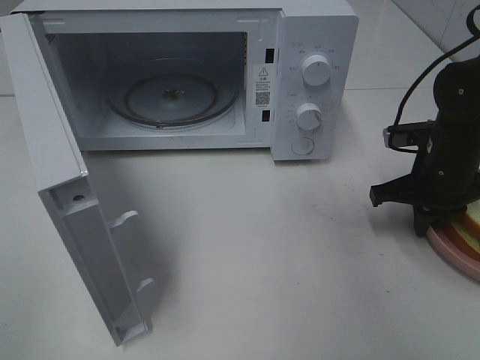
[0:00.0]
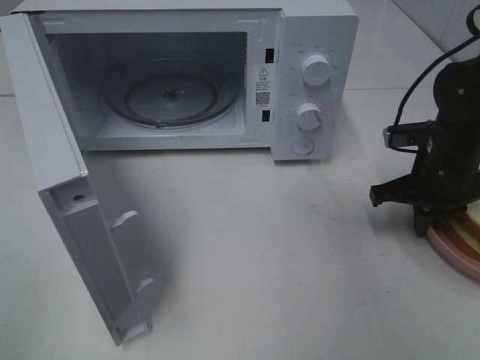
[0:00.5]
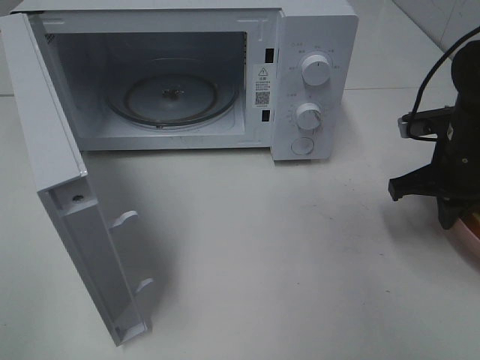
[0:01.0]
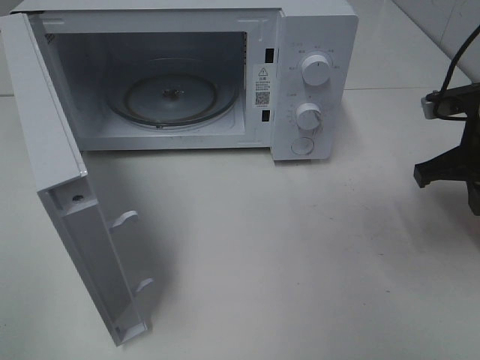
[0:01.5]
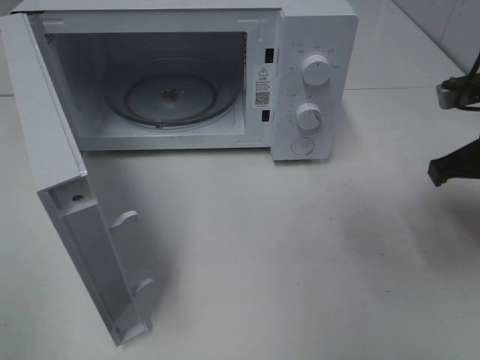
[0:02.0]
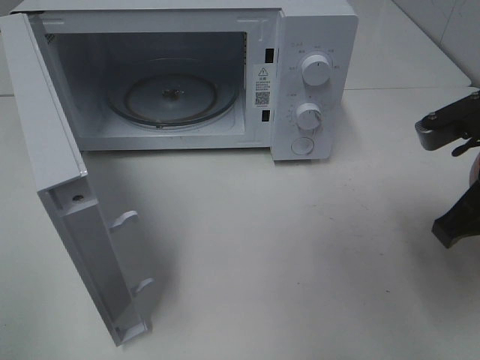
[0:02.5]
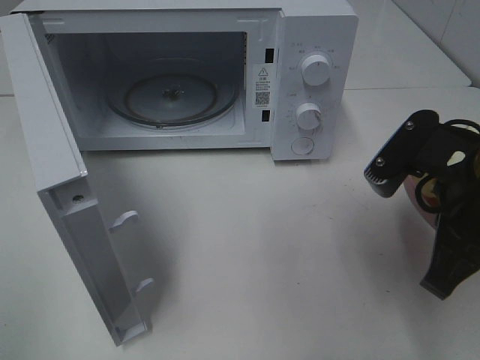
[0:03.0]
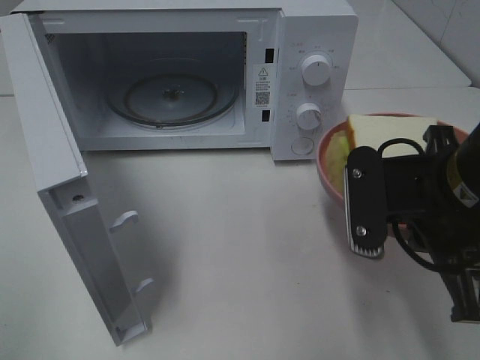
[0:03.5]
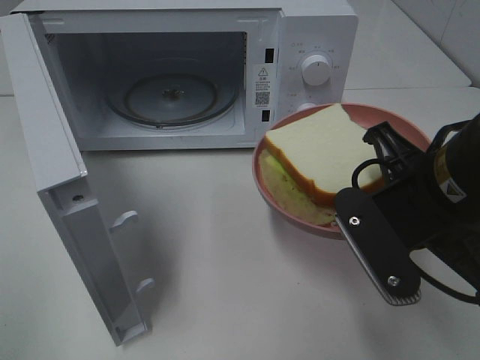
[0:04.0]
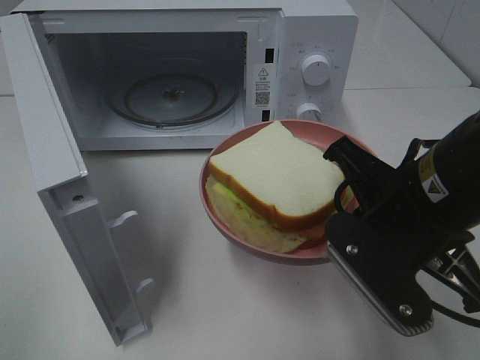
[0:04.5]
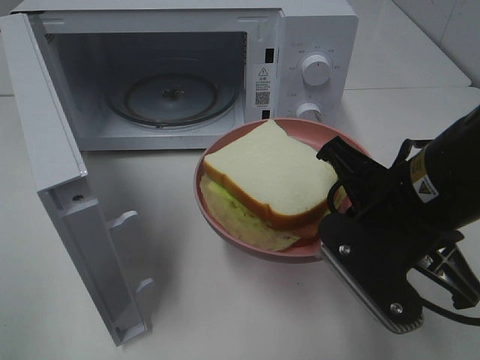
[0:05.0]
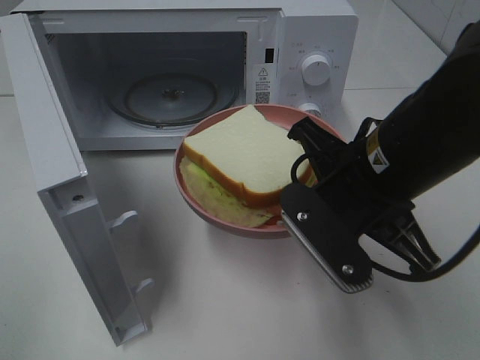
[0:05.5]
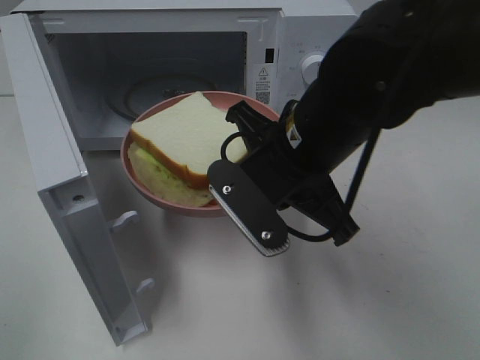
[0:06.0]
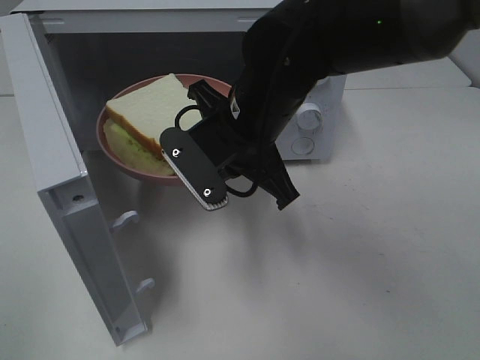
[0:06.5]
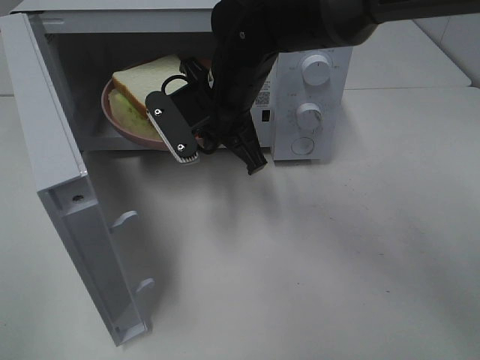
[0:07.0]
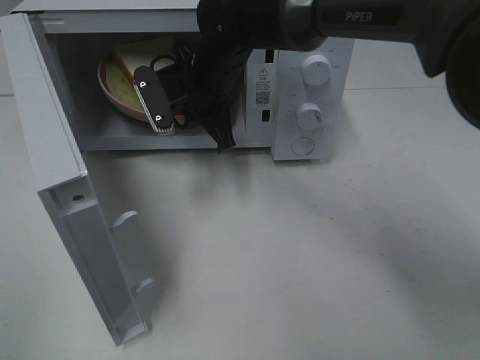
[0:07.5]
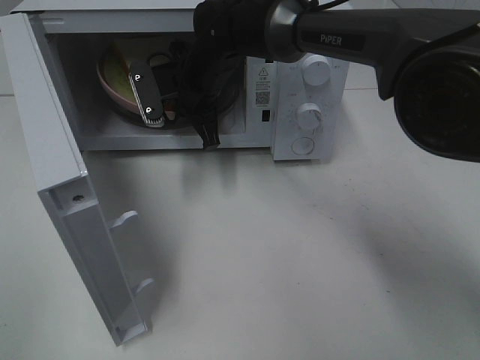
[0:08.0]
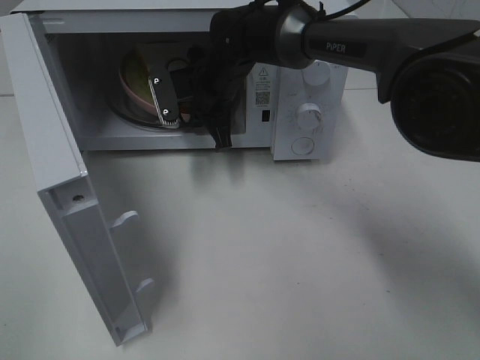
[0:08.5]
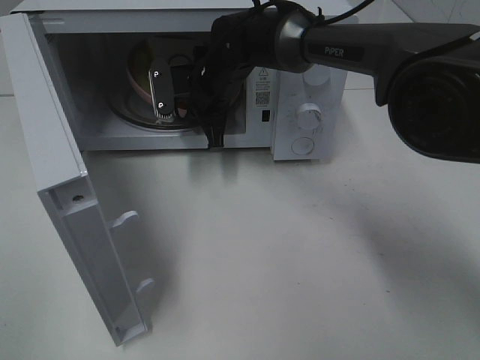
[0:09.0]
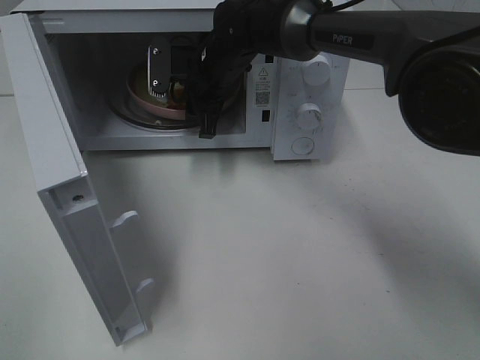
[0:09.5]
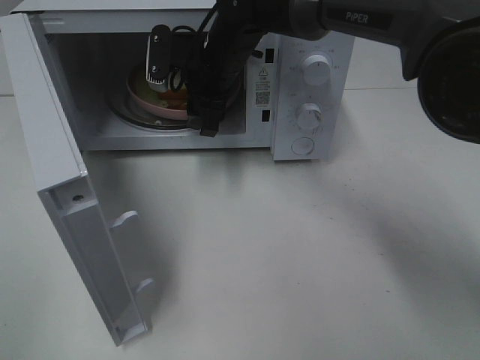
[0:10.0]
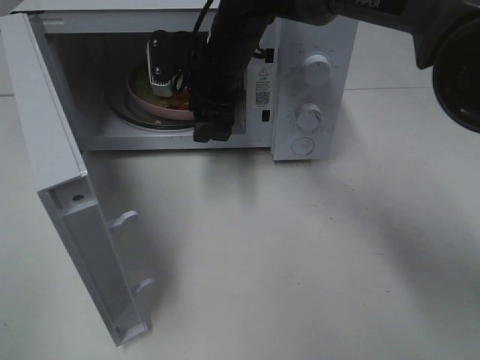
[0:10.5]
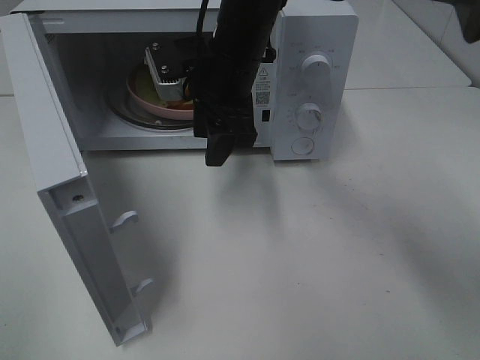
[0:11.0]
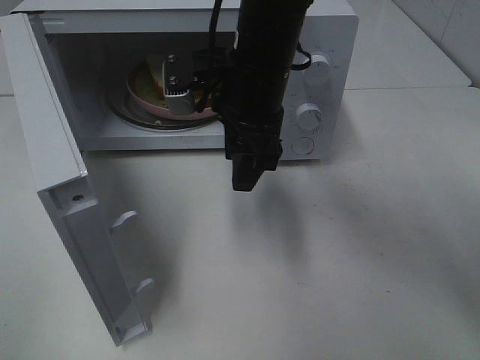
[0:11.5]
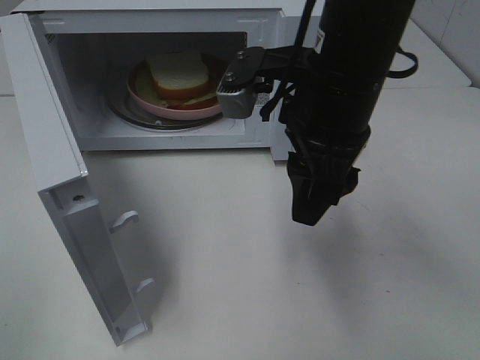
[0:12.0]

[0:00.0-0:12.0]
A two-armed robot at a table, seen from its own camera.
Task of the whole recording: Heat Sandwich.
Step, 0:00.0 to 0:10.0: Right hand: place the plate in the microwave.
0:00.0 to 0:02.0: The right gripper shifts approximately 10 cm upward and backward.
0:02.0 to 0:04.0: The right gripper heads to the left and backward, covering some 15 cm.
0:04.0 to 0:06.0: The right gripper shifts some 10 cm to the left and forward.
0:06.0 to 0:08.0: The right gripper is displaced forward and to the left by about 20 cm.
0:08.0 to 0:10.0: The right gripper opens.
0:10.0 to 0:12.0: The right gripper is displaced backward, to the right and upward by approximately 20 cm.

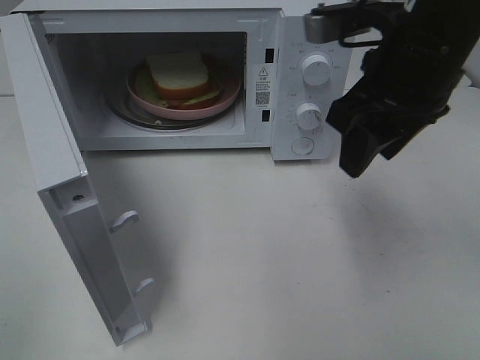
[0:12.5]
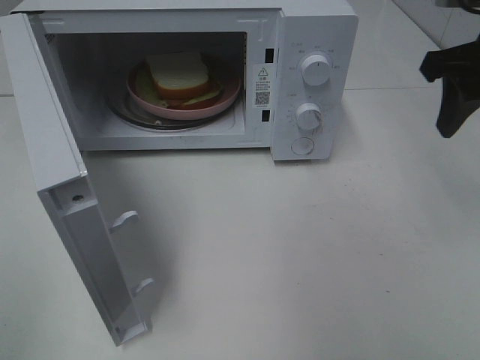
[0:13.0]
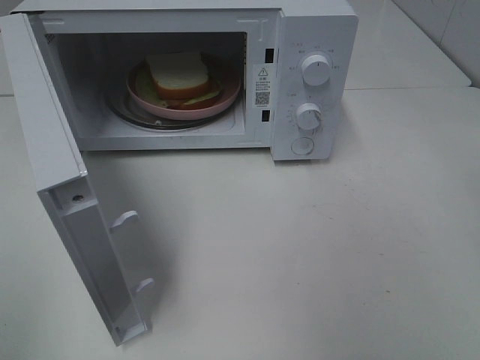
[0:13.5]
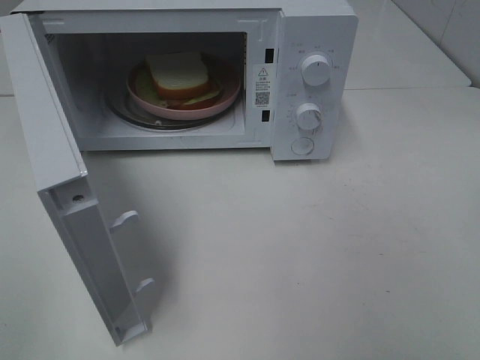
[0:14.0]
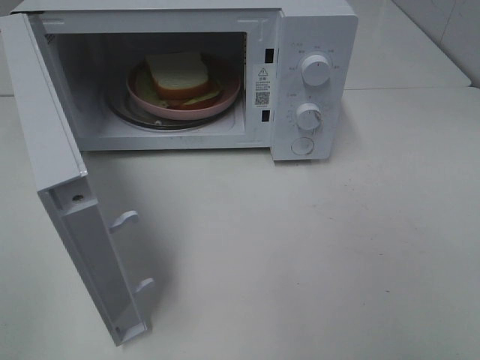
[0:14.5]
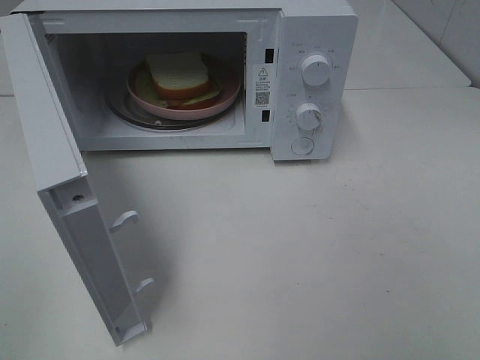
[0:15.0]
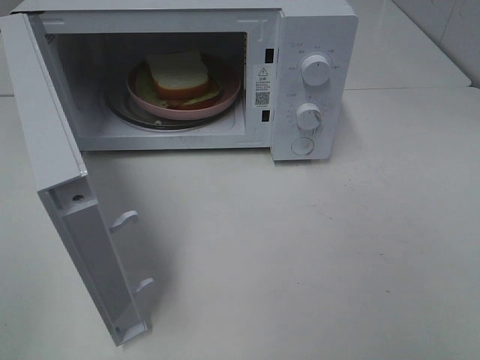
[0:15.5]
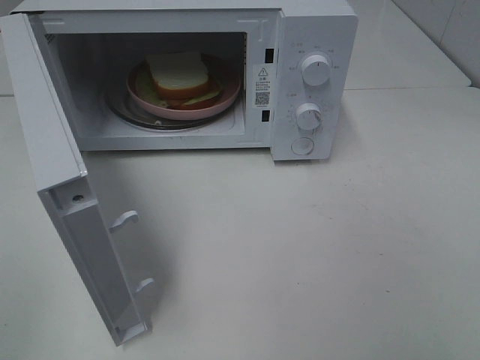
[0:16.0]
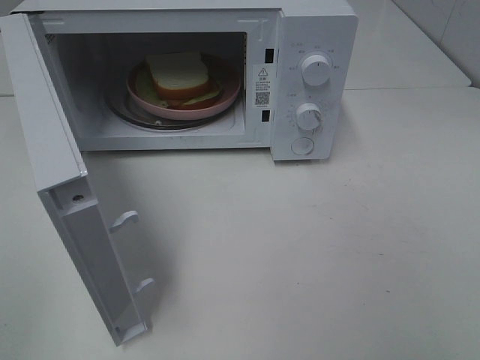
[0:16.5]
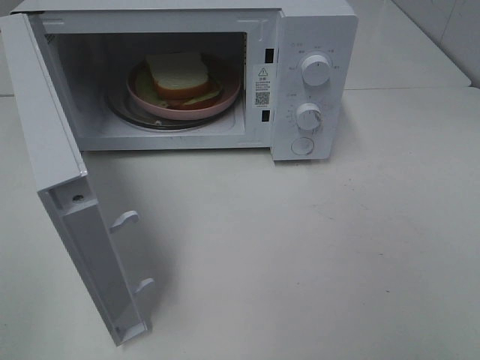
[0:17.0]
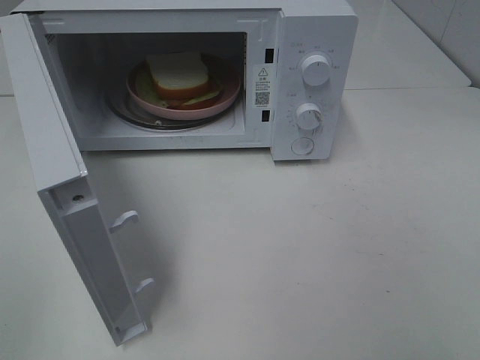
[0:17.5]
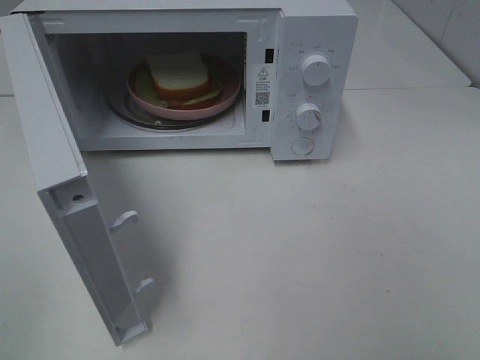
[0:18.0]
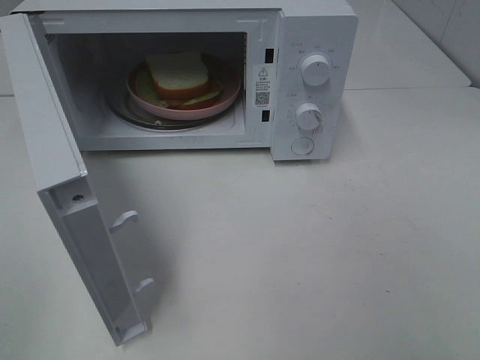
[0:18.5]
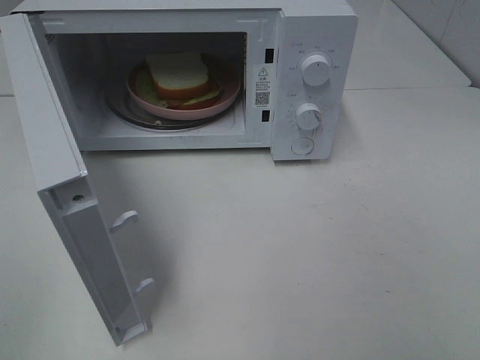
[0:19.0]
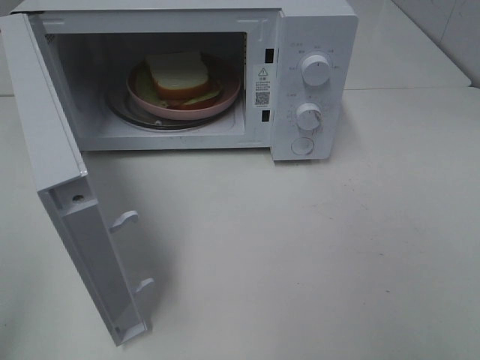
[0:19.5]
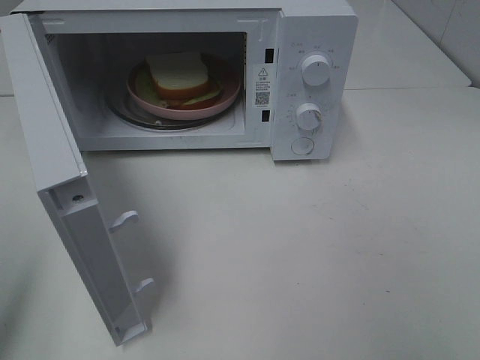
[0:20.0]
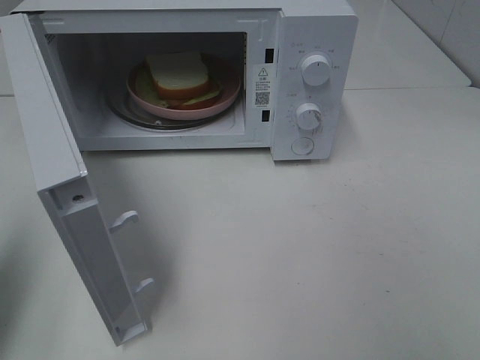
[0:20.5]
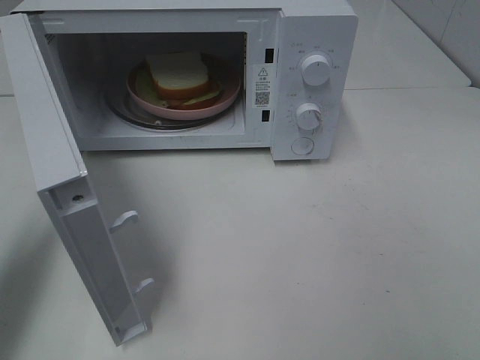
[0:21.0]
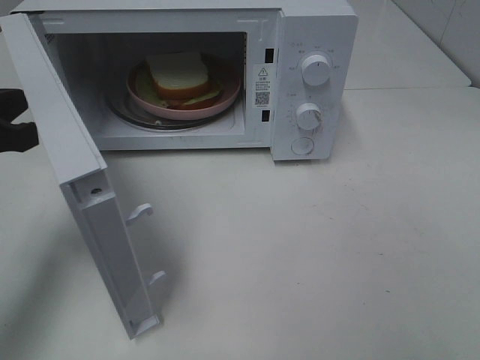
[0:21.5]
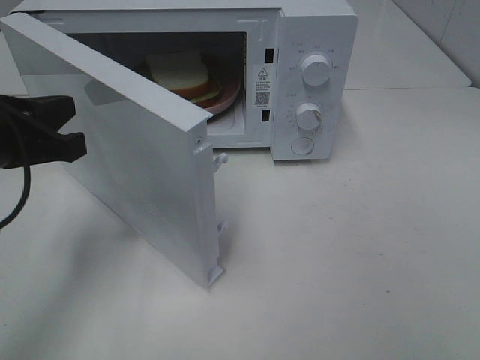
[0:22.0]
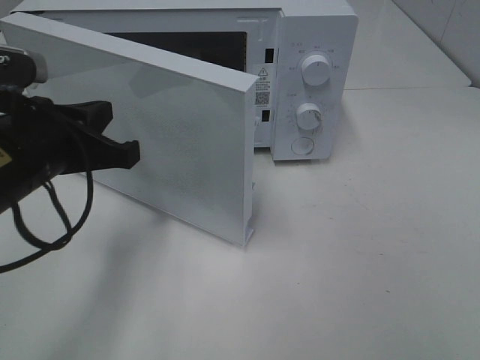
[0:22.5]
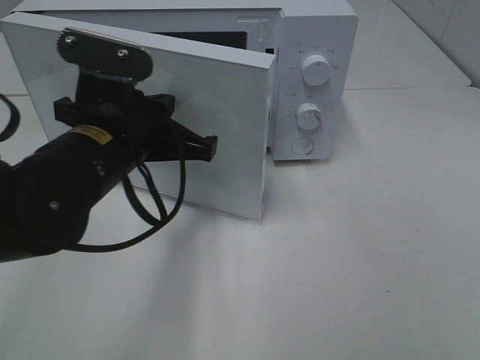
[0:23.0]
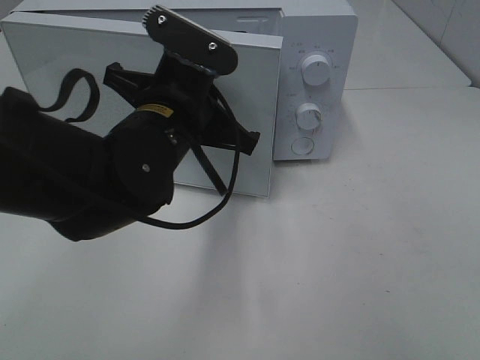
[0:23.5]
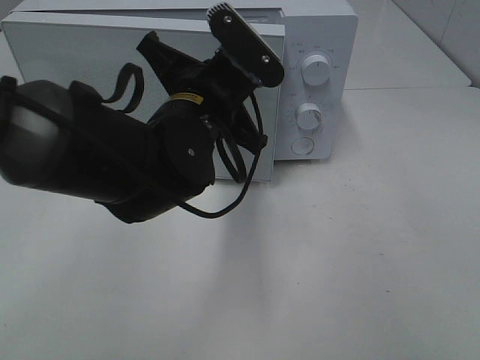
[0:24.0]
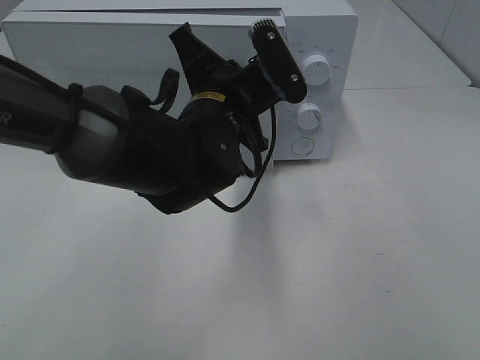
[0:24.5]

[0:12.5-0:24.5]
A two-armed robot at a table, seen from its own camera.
Task of the whole recording: Heat Sandwich.
0:12.5 to 0:14.5: The right gripper shifts some 30 cm backward and to the right.
0:18.5 to 0:20.5: The left gripper shifts roughly 15 cm forward, and closes up.
0:20.5 to 0:22.5: The left gripper goes some 20 cm to the right, downward and forward.
0:22.5 to 0:24.5: The left gripper heads to the right and forward, covering about 20 cm.

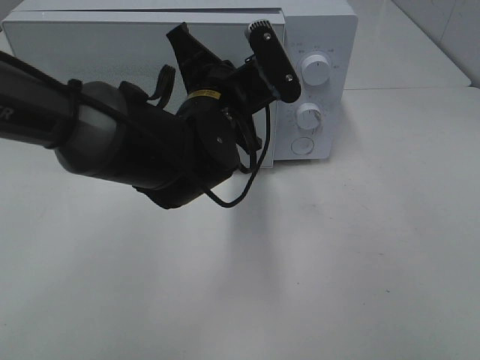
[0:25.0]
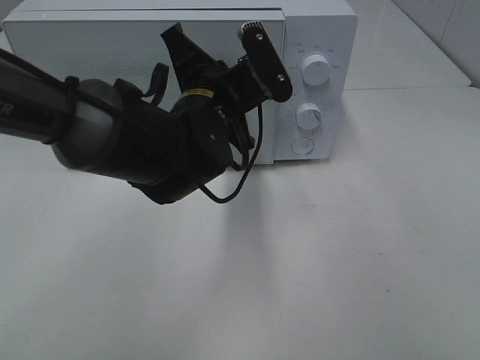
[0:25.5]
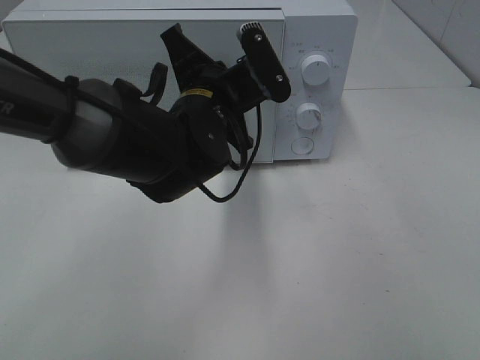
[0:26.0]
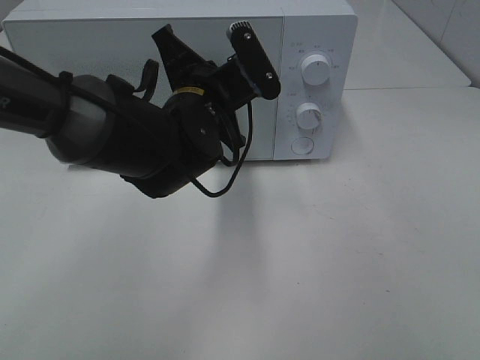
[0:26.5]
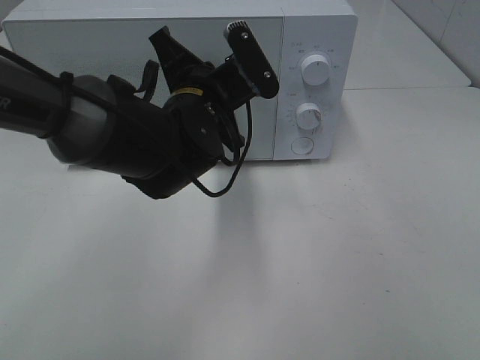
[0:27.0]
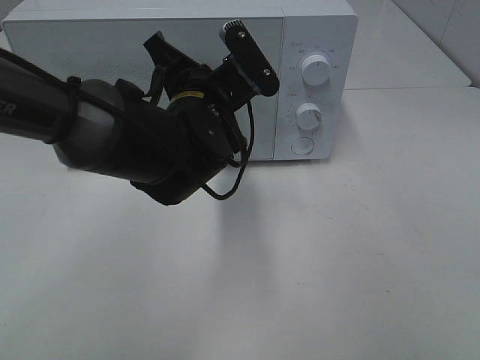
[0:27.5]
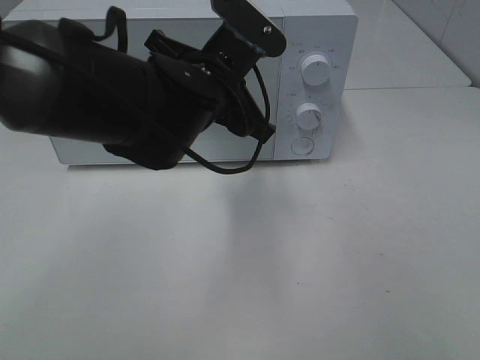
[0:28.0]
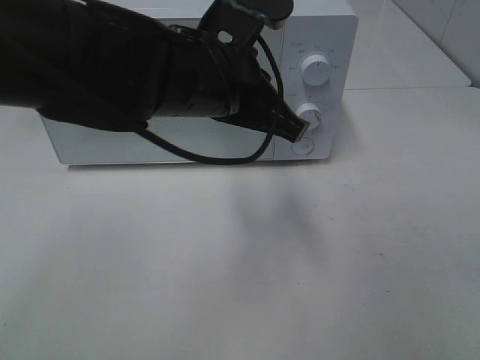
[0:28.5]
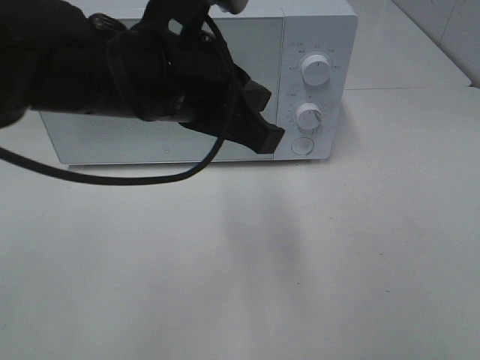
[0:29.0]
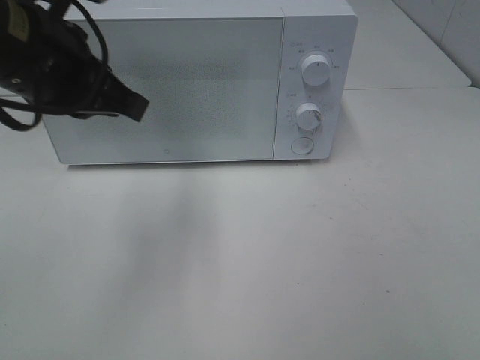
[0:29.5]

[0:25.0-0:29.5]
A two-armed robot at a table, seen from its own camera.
Task of the whole recording: Heat Sandwich.
Step, 0:25.0 to 0:29.0: Left hand: close the microwave door.
0:25.0 to 0:27.0: The grippers move only a little.
0:27.0 to 0:29.5: The left gripper moves upward, to the left and backward, about 20 cm.
